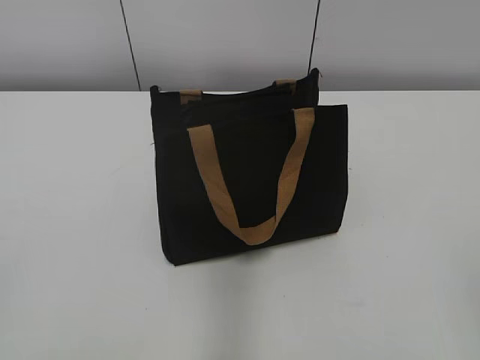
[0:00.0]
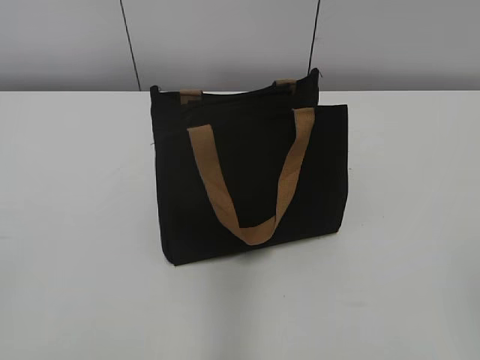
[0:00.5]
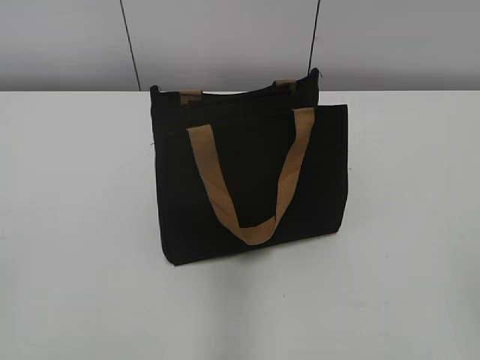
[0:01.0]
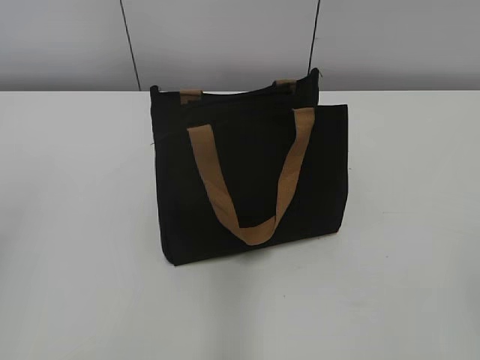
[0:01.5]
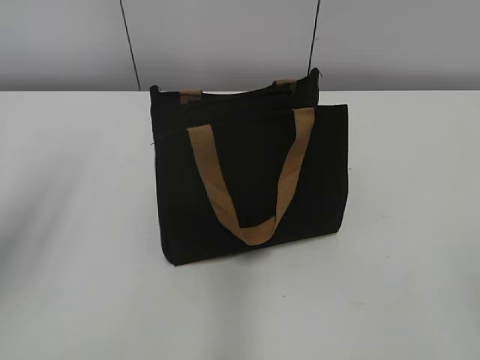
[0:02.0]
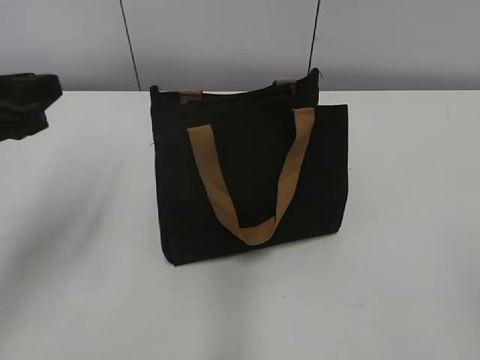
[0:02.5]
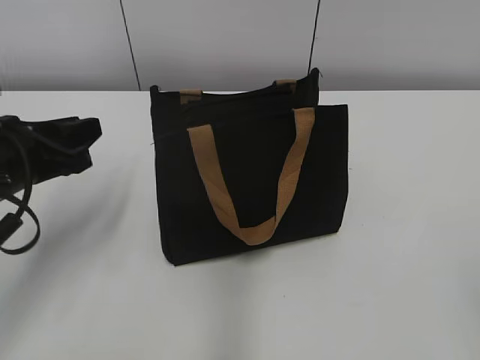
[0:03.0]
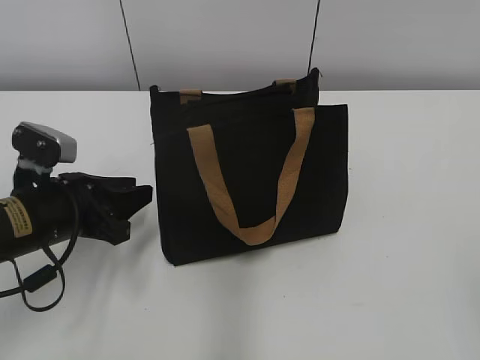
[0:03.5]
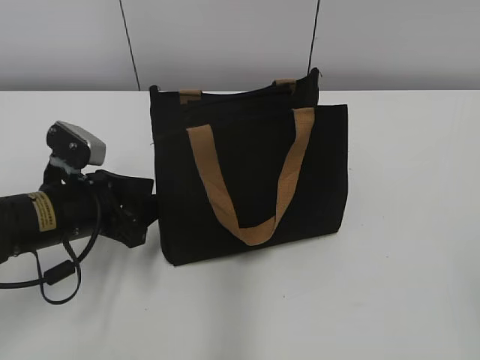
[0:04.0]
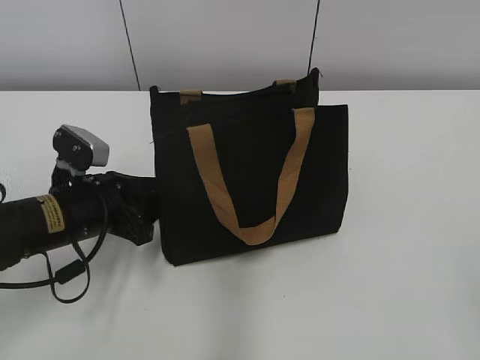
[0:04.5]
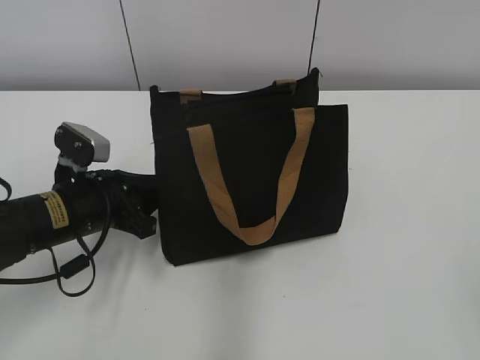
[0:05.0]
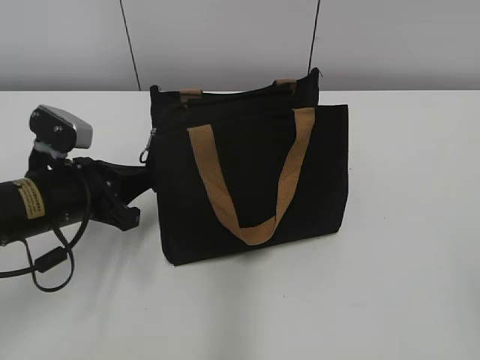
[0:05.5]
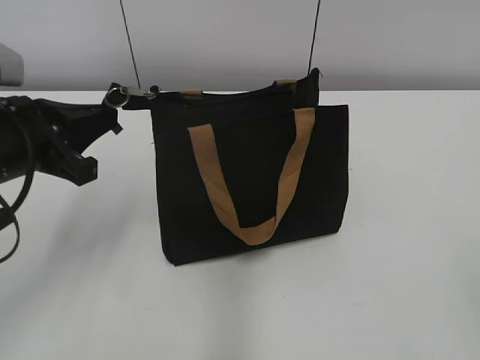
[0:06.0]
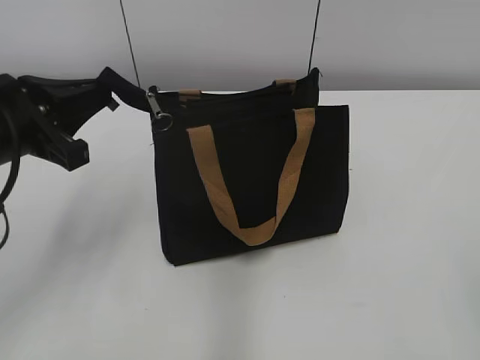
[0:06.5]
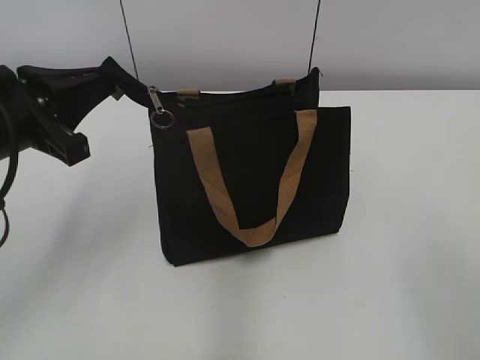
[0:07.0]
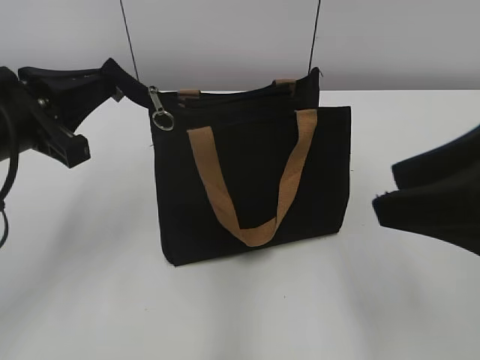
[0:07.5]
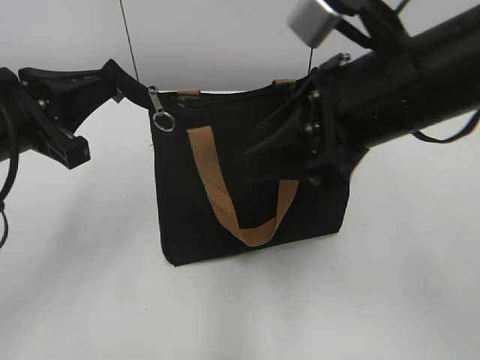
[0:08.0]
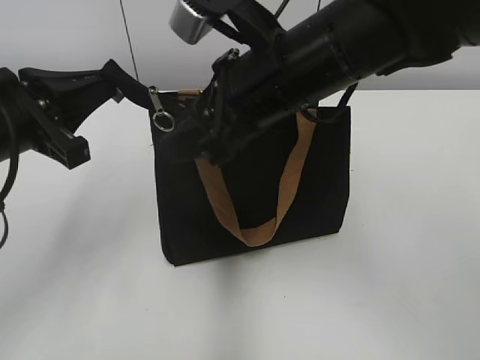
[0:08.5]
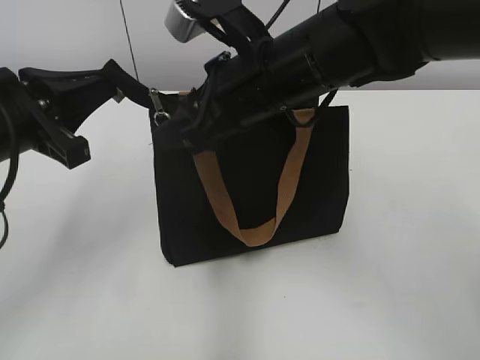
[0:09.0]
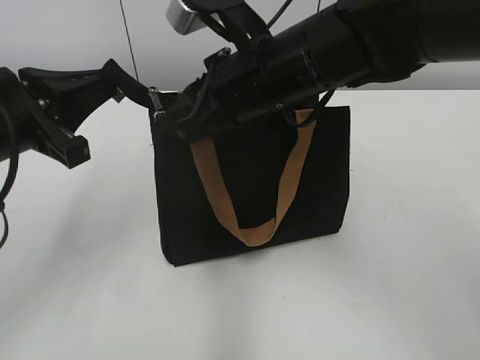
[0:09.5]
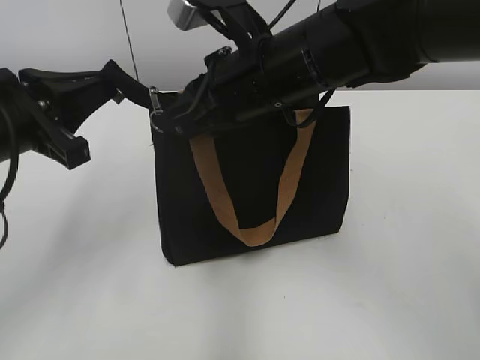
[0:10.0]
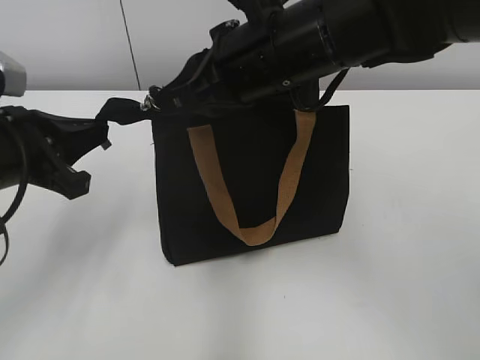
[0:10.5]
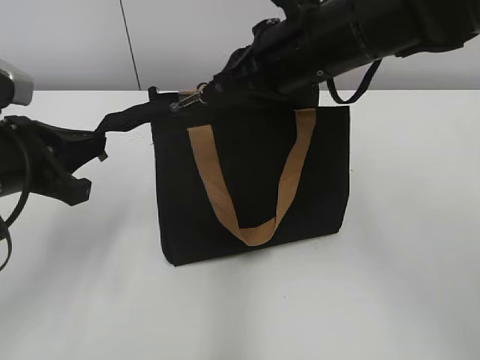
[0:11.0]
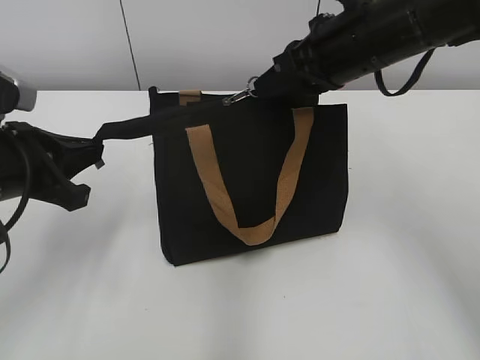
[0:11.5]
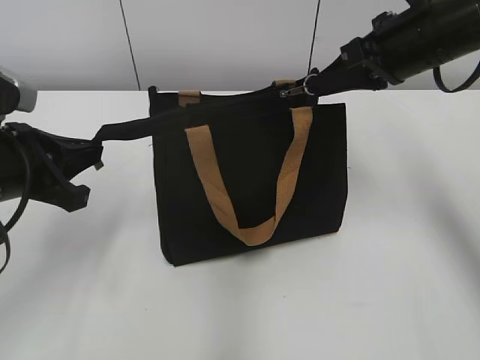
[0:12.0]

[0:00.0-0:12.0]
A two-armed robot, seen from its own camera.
0:02.0 to 0:04.0: The left gripper goes some 25 cm downward, forward and to the right, and opens.
0:04.0 to 0:06.0: The left gripper is displaced upward by approximately 10 cm, and closes its fingers.
0:06.0 to 0:08.0: The right gripper travels forward and to the left by about 30 cm.
0:08.0 to 0:10.0: The right gripper heads to the left and forward, covering some 10 cm, and closes its fingers.
0:10.0 to 0:12.0: The right gripper goes about 15 cm to the right.

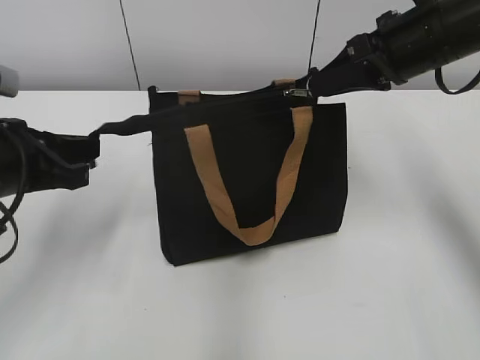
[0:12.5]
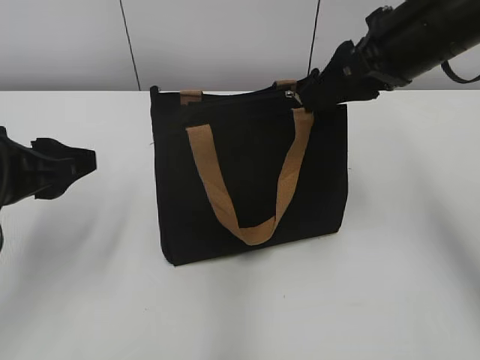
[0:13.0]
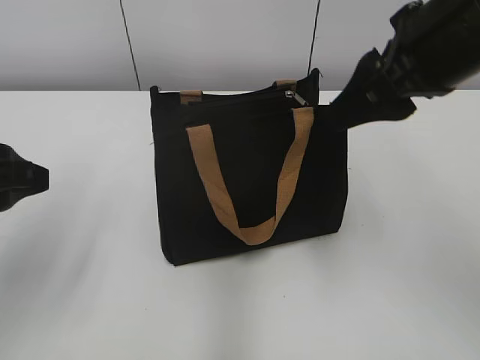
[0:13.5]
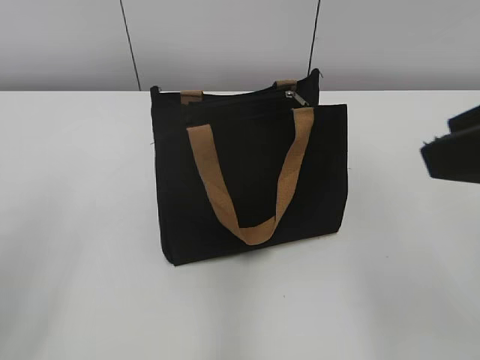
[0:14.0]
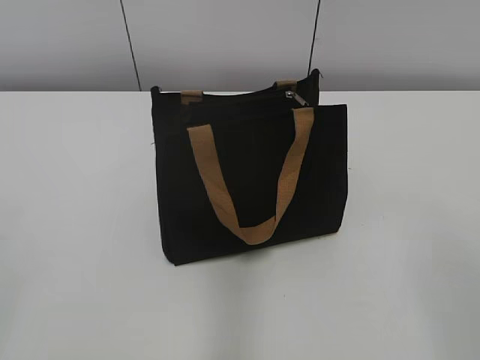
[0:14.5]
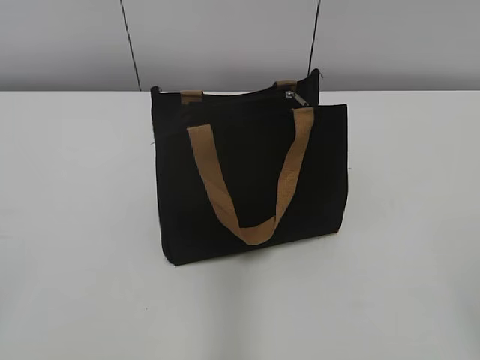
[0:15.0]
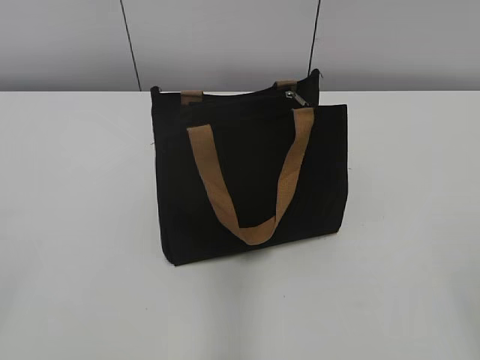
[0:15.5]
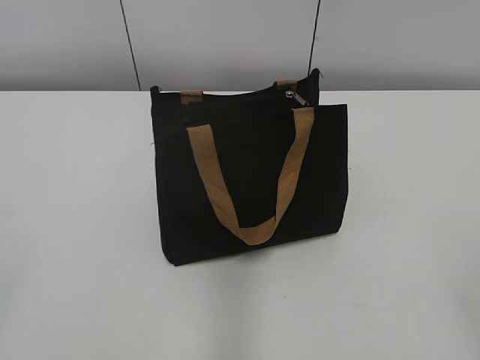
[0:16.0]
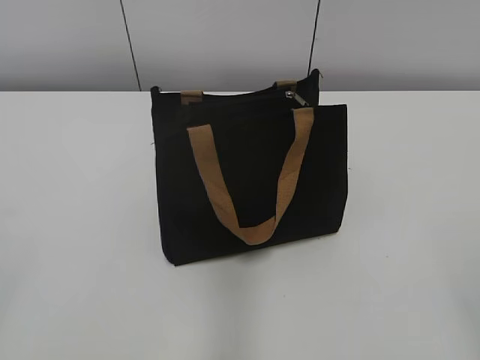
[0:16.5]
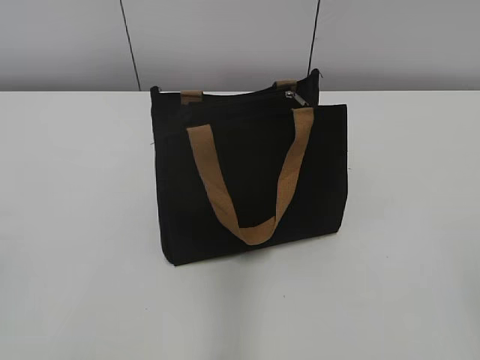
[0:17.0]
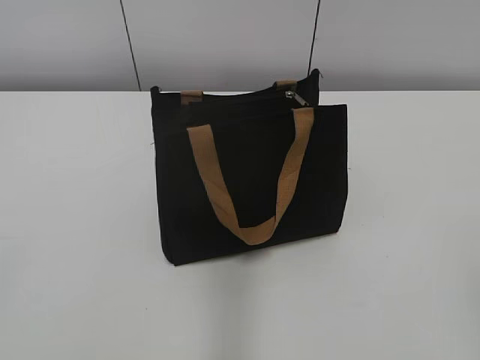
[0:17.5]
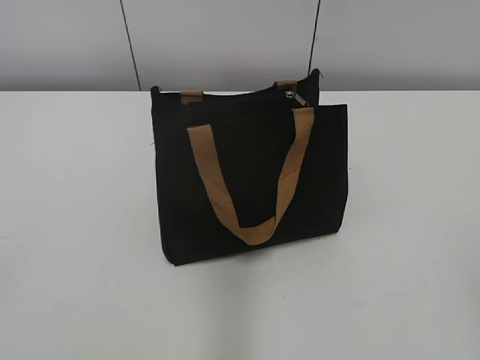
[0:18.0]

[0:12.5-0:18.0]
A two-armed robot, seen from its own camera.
0:12.5 to 0:14.5: The left gripper moves backward, to the left and upward, some 25 cm, and opens up. Meanwhile the right gripper travels backward by some 30 cm, and opens its fingers.
